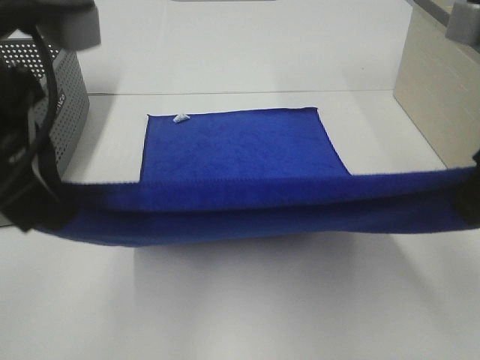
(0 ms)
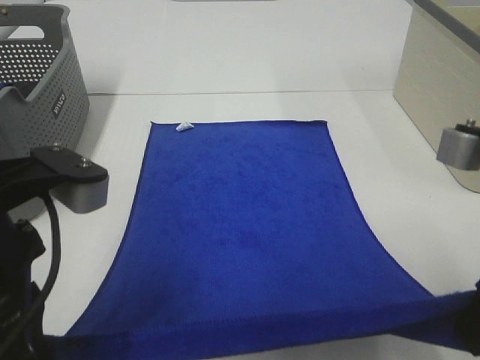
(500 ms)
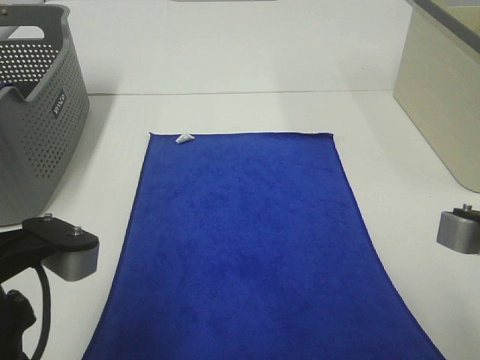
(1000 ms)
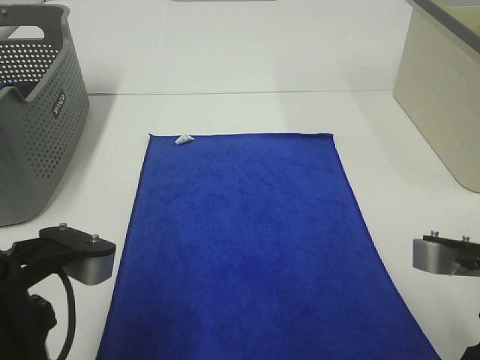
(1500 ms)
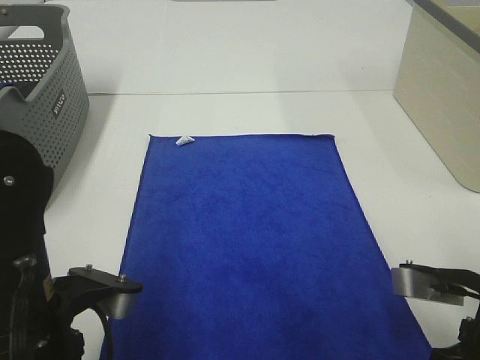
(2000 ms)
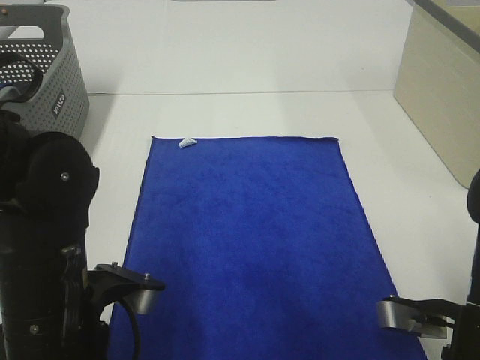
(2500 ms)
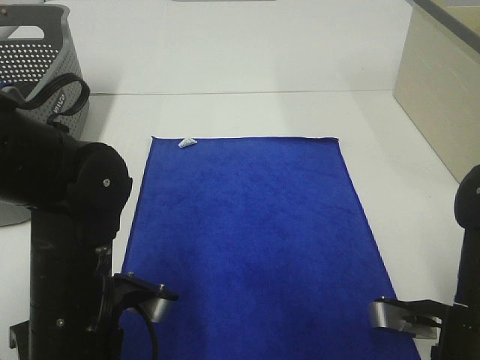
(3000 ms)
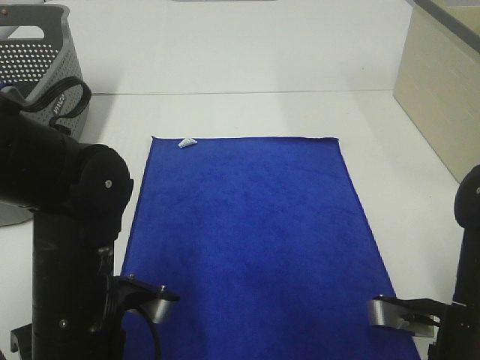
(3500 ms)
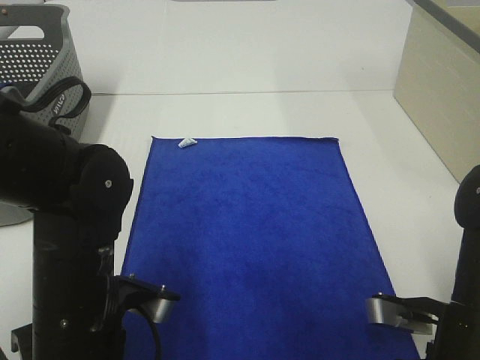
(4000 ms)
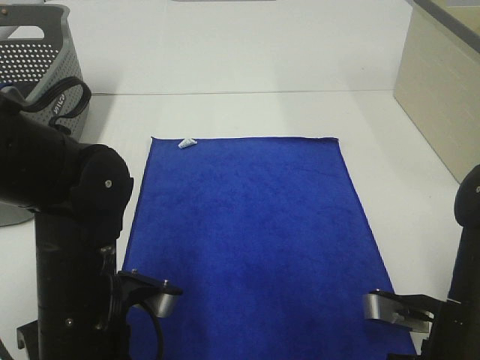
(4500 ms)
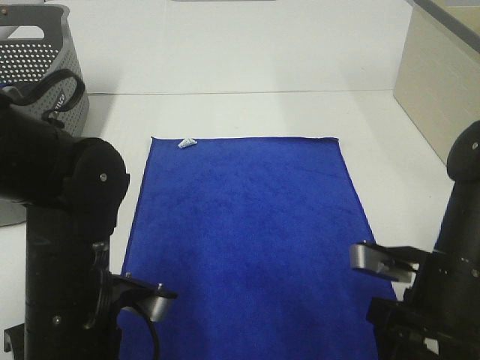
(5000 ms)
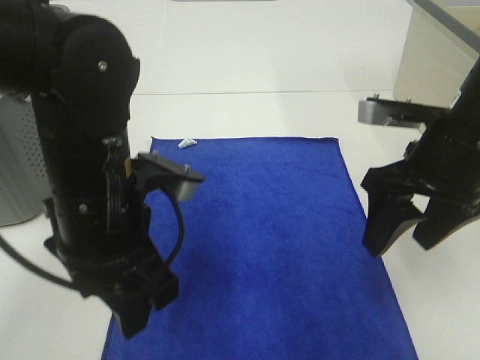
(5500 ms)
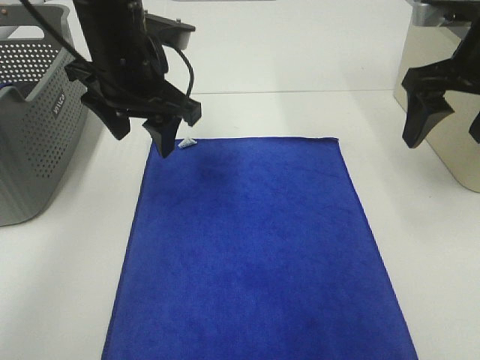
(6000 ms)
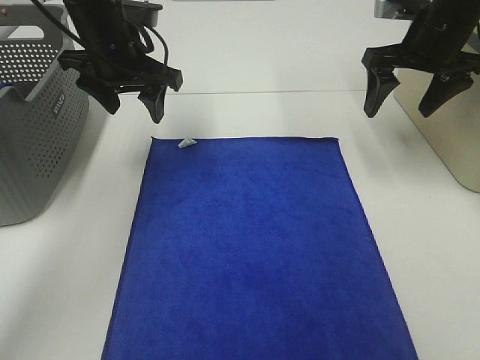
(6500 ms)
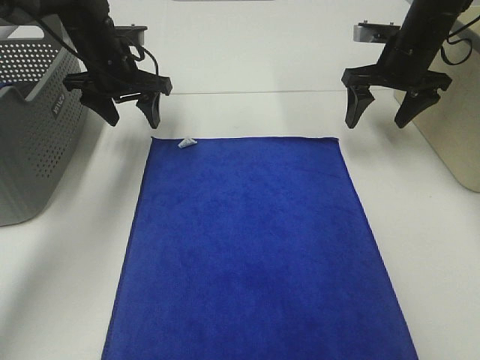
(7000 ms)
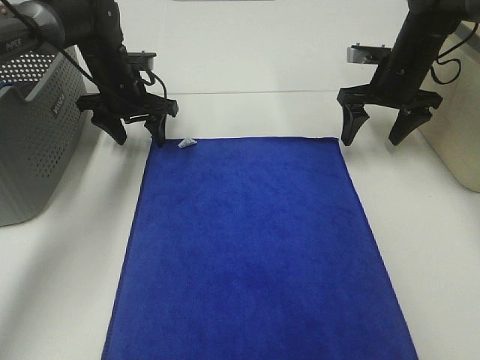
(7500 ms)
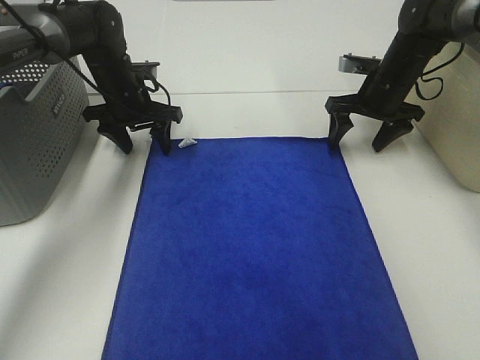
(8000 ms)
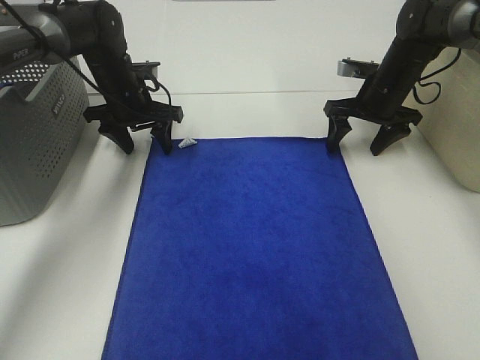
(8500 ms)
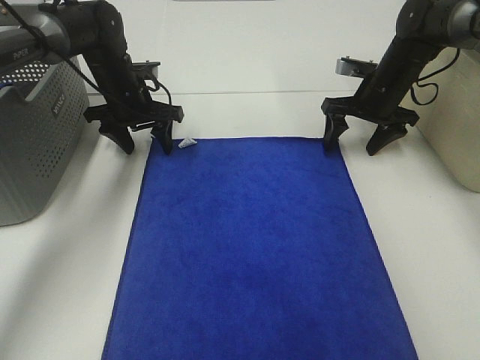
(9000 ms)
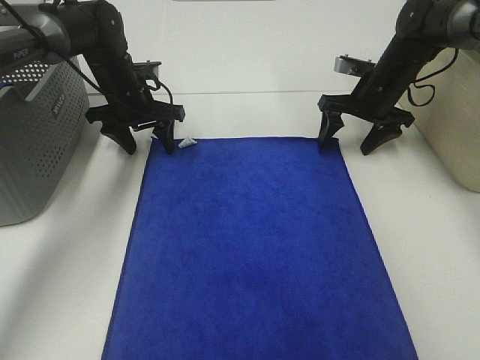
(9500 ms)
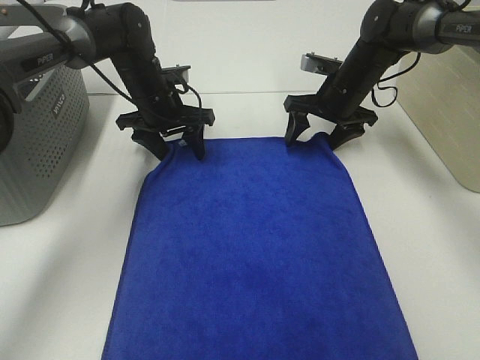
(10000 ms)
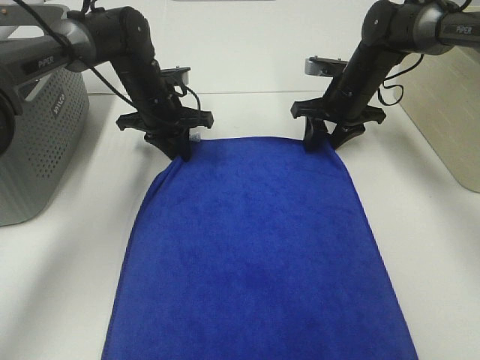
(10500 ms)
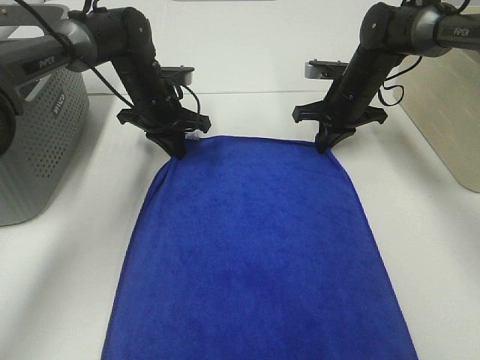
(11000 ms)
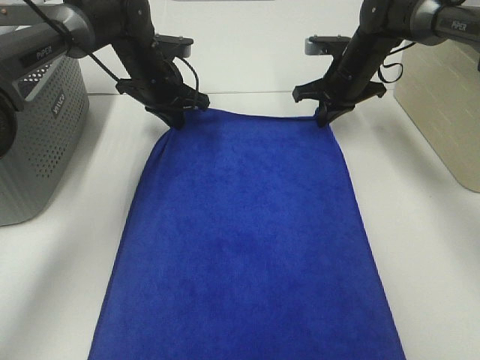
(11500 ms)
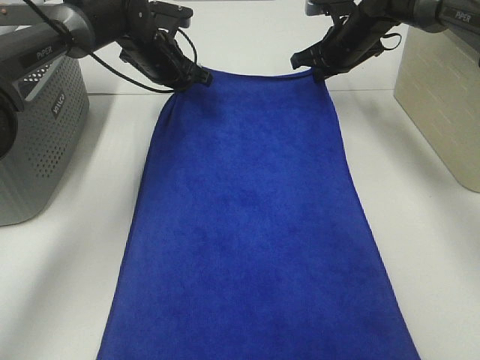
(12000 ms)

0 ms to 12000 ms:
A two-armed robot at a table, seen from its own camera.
Task of the whole recording: Remove the towel and place it.
Step, 0 ms to 7500 ms: Left hand:adjust the blue towel.
Step, 0 ms to 7500 ms: Right hand:adjust the blue towel.
0 ms to 2000 ms: The two grippers go approximately 15 cm downward.
2000 ms to 4000 ms: The right gripper is displaced downward by roughly 5 cm. The left gripper shifts by roughly 5 cm.
4000 ms to 6000 ms: The grippers both shift forward and upward by some 25 cm. The left gripper opens its fingers, while the right gripper opens up.
6000 ms to 8000 ms: The right gripper goes about 20 cm forward and downward; the left gripper heads forward, downward and to the left, covering roughly 20 cm.
8000 ms to 10000 ms: The right gripper moves to the left, some 5 cm.
10000 ms to 12000 ms: The right gripper moves forward and upward, roughly 10 cm, and closes up; the left gripper travels forward by approximately 5 cm, and closes up.

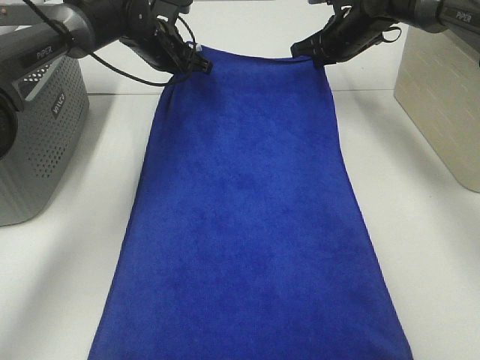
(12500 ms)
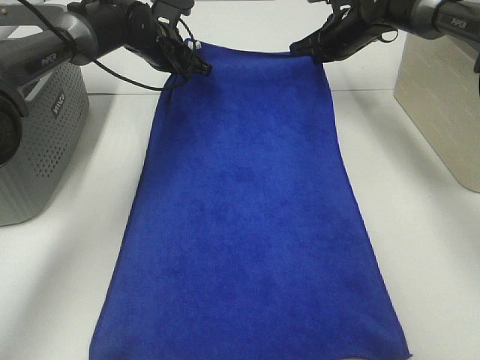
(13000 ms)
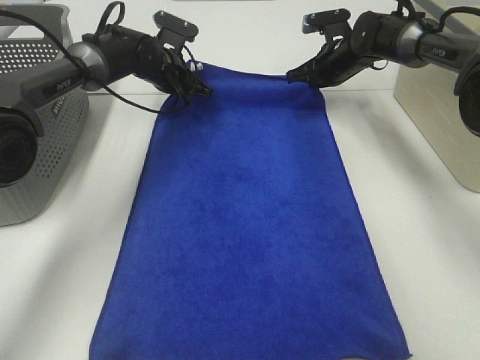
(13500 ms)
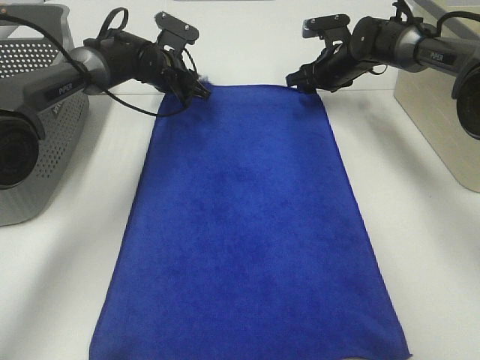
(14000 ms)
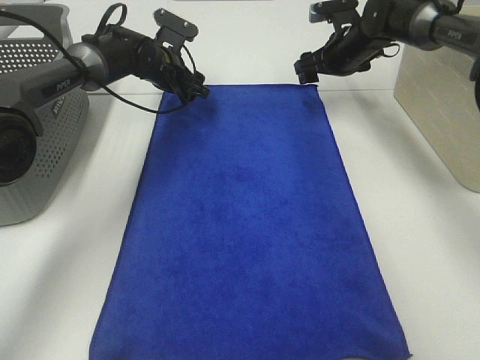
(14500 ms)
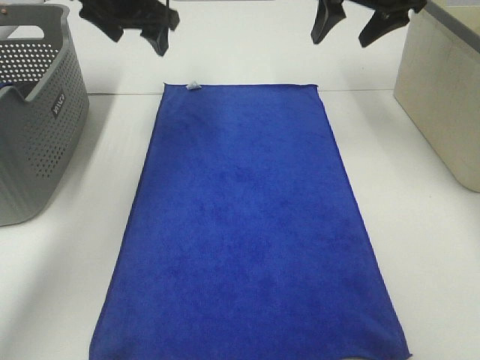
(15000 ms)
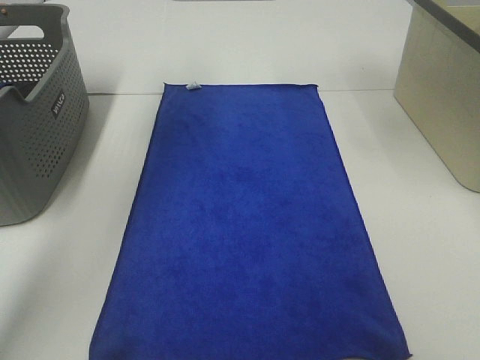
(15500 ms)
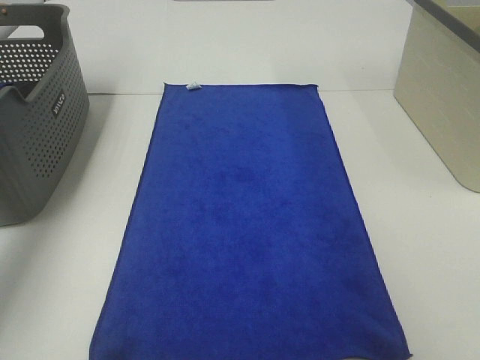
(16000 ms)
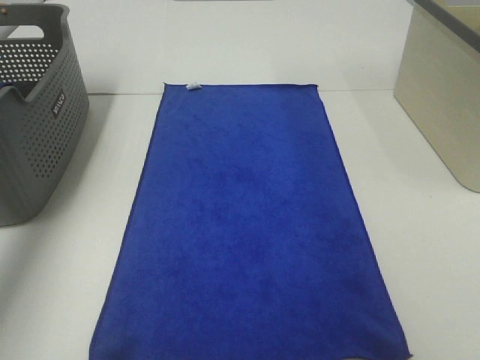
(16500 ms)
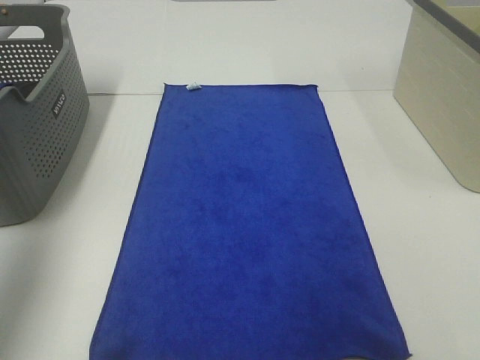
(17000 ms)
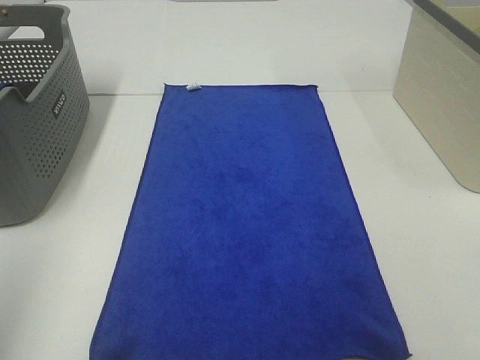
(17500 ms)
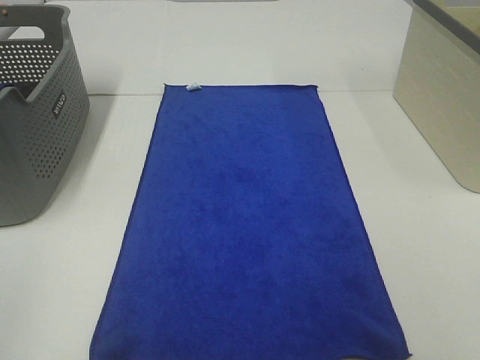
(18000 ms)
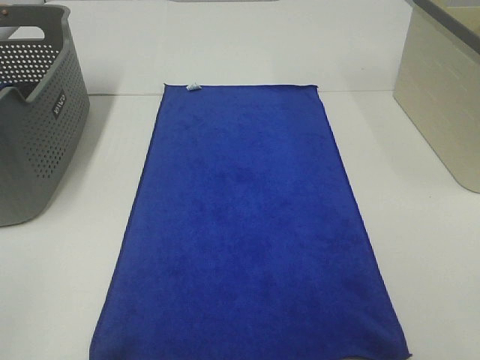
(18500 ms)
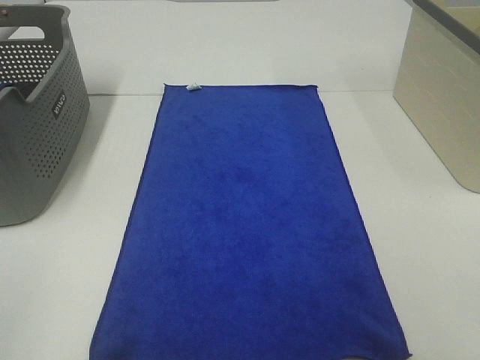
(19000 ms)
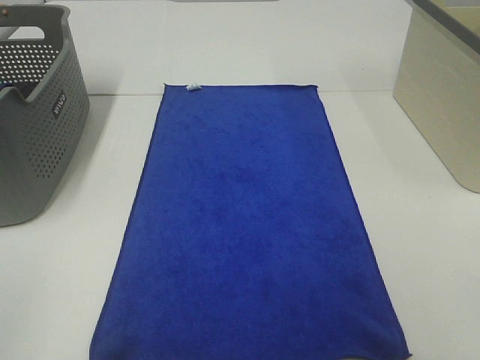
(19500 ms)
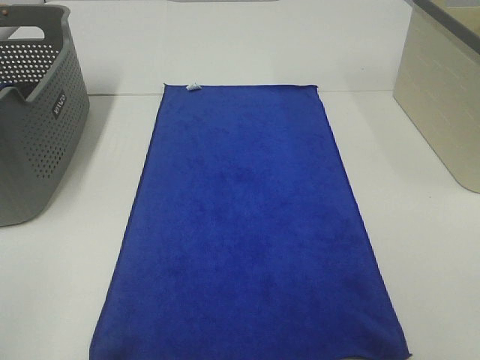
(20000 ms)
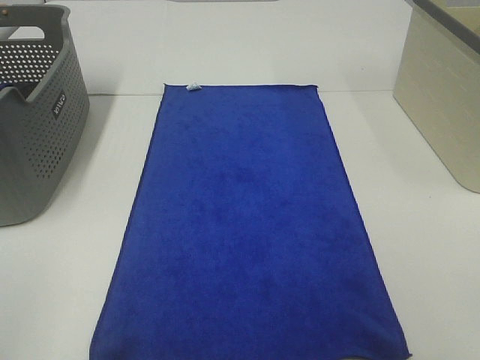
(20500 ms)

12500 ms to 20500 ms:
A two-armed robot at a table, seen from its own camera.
Task of the whole recording: Remove the towel and place it.
12500 ms to 14500 ms: The left gripper opens up. Meanwhile the right gripper opens up.
14500 ms to 16500 ms: The left gripper travels upward, to the left and backward by about 35 cm. Meanwhile the right gripper moves upward, backward and to the right, approximately 35 cm.
16500 ms to 18500 ms: The left gripper goes roughly 40 cm backward.

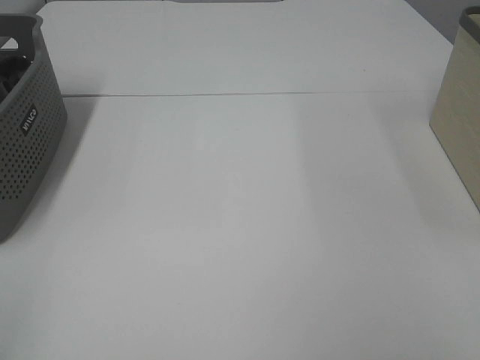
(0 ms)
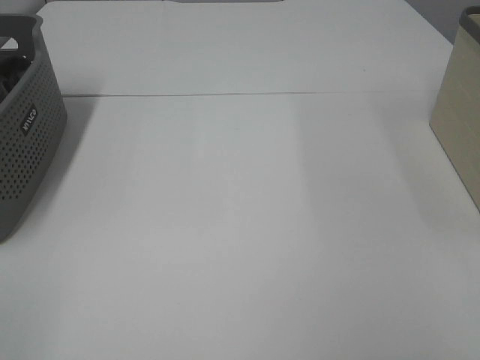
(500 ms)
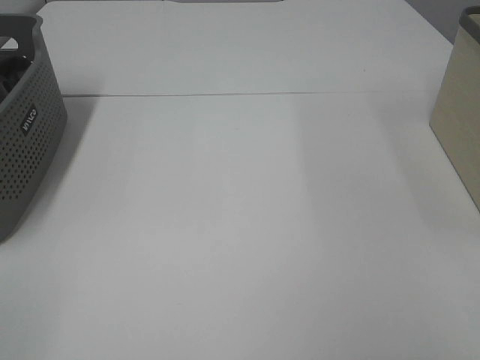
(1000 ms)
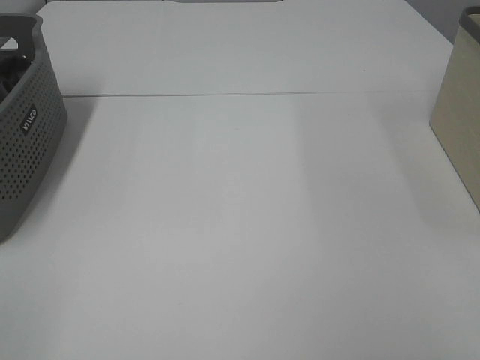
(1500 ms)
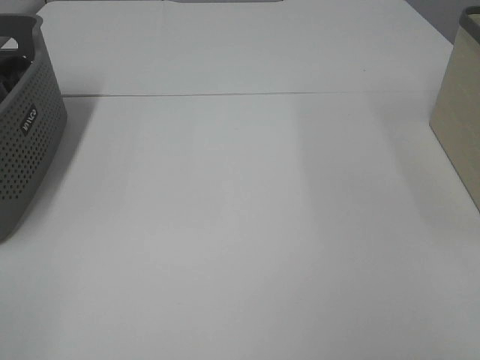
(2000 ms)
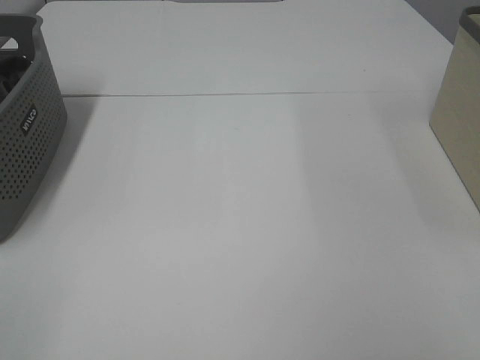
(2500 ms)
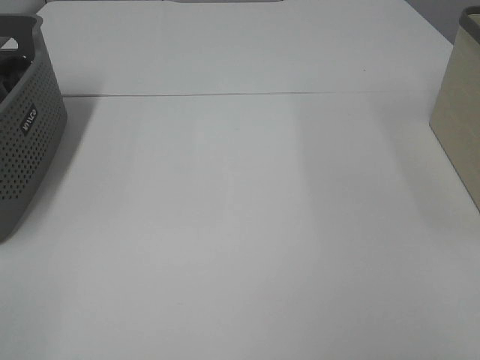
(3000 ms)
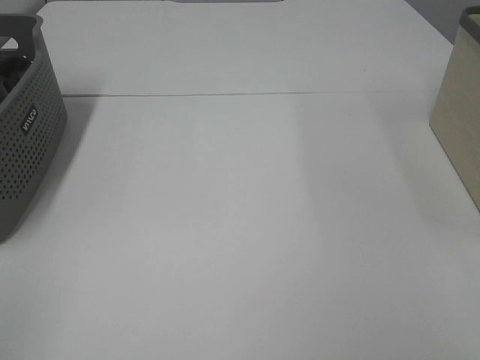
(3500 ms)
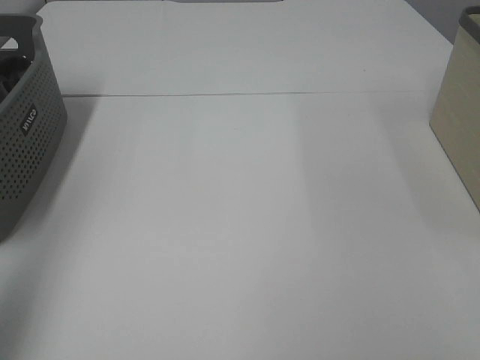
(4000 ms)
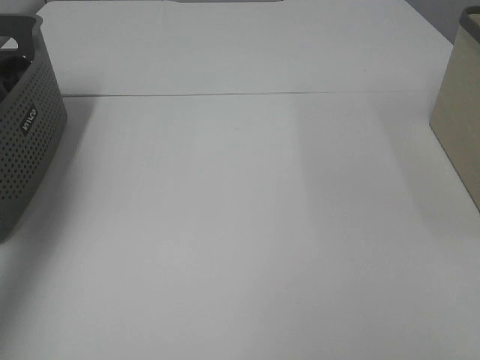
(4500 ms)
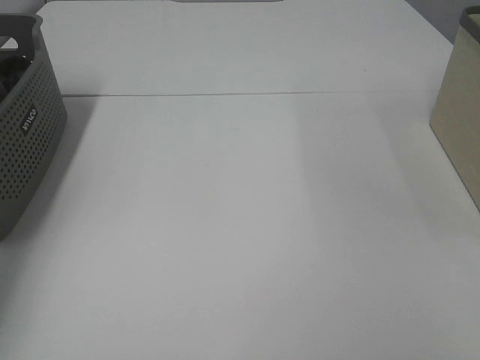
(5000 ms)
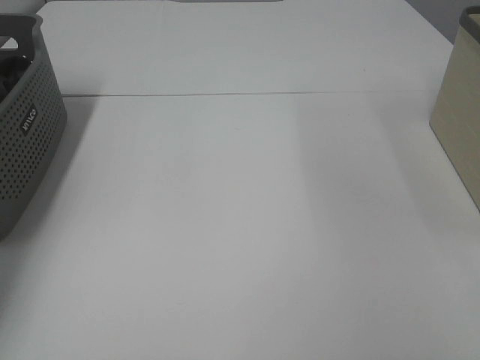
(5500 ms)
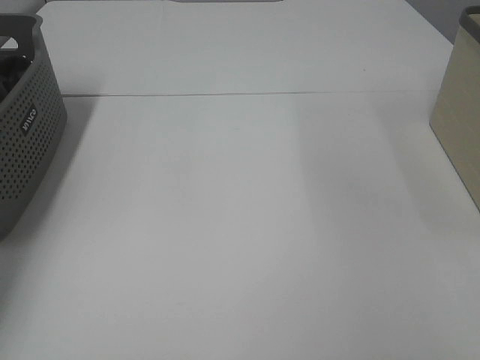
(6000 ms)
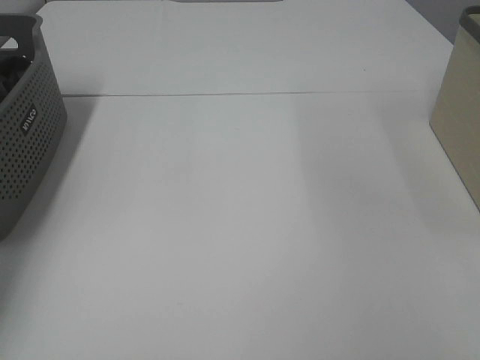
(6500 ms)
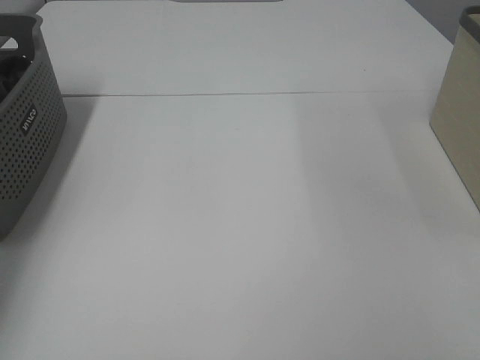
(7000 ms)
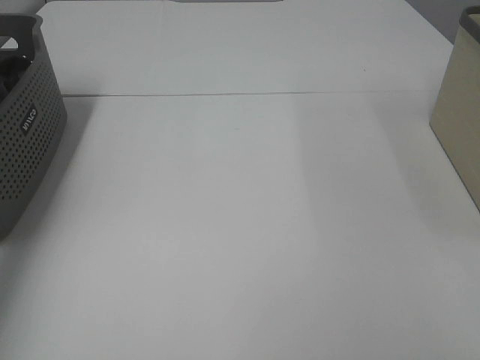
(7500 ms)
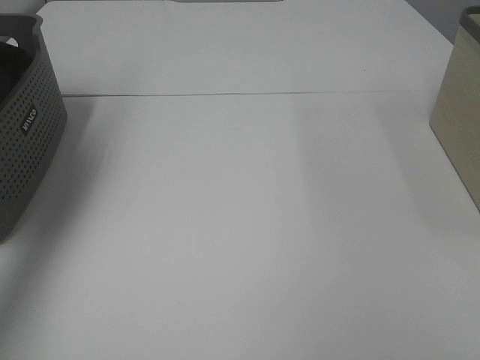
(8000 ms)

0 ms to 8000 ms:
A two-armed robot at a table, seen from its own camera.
Task of the whole recording: Remove the towel and place it.
2000 ms to 4000 ms: The left gripper travels forward and upward by approximately 20 cm.
4000 ms to 6000 ms: The left gripper heads forward and downward, covering about 35 cm, and closes up.
6000 ms to 8000 ms: The left gripper shifts about 25 cm upward.
